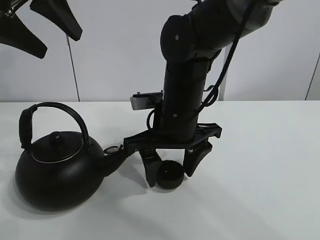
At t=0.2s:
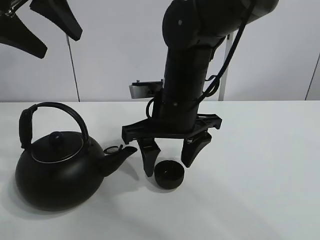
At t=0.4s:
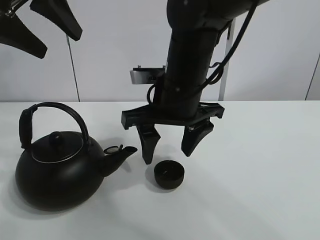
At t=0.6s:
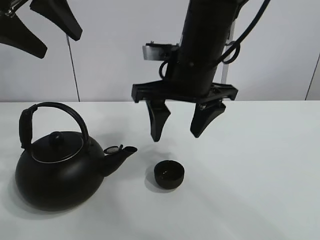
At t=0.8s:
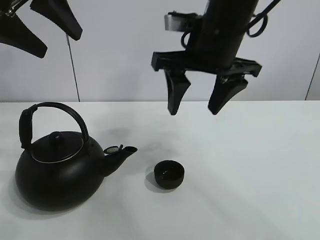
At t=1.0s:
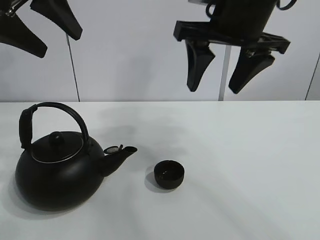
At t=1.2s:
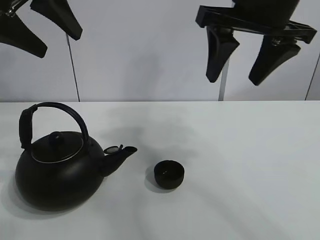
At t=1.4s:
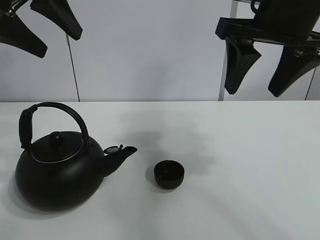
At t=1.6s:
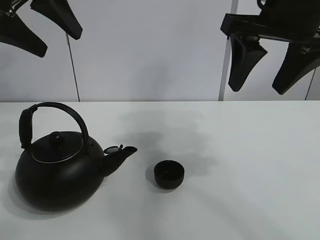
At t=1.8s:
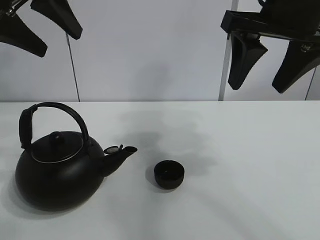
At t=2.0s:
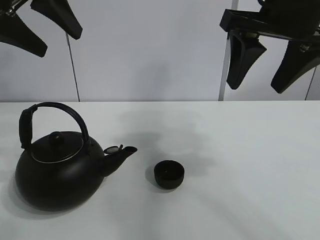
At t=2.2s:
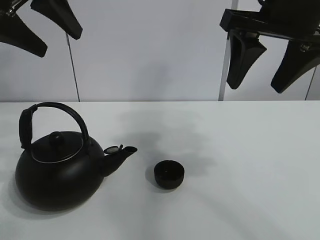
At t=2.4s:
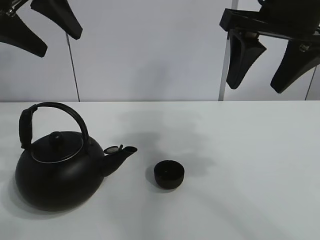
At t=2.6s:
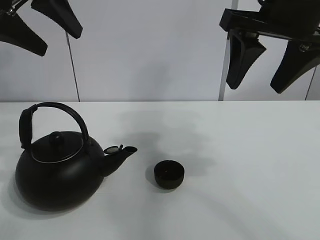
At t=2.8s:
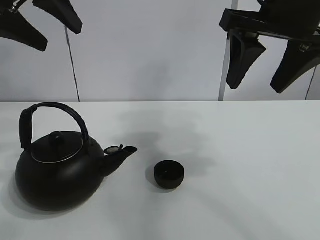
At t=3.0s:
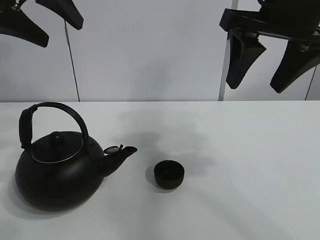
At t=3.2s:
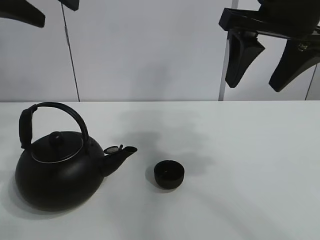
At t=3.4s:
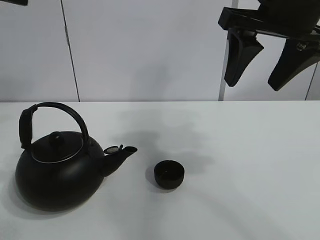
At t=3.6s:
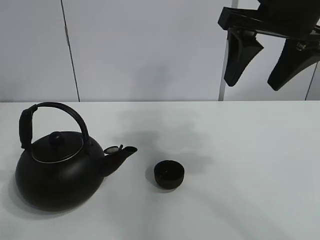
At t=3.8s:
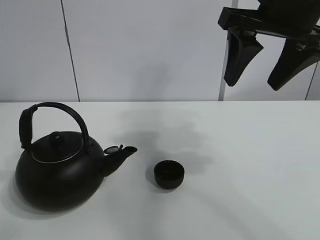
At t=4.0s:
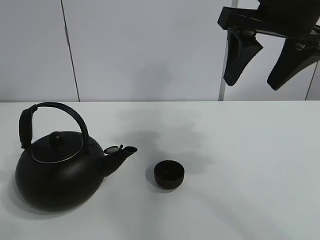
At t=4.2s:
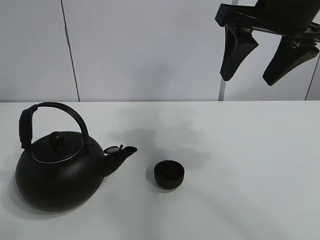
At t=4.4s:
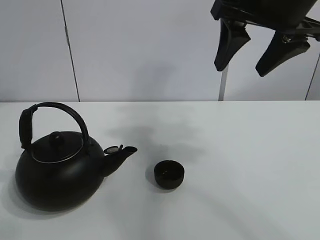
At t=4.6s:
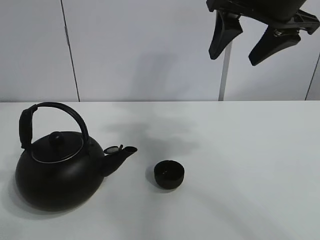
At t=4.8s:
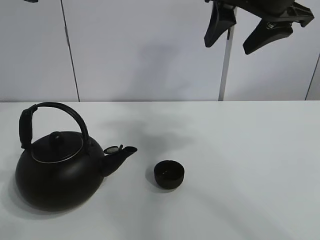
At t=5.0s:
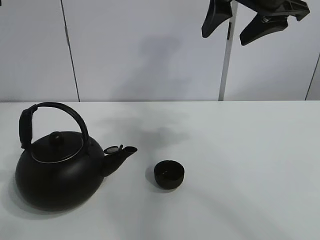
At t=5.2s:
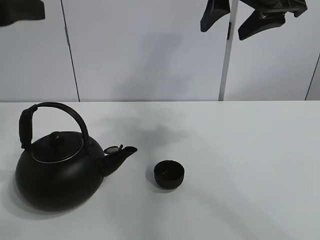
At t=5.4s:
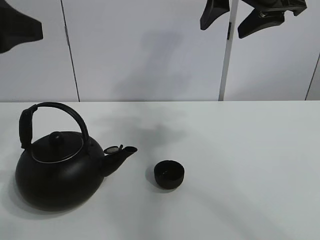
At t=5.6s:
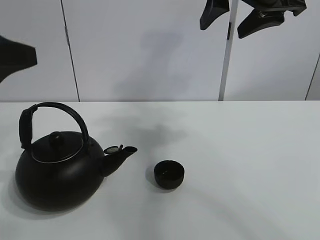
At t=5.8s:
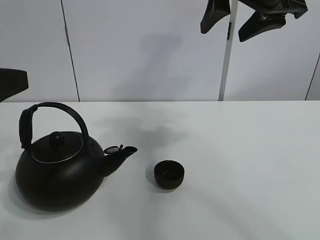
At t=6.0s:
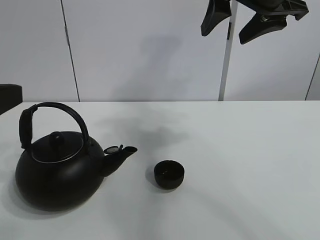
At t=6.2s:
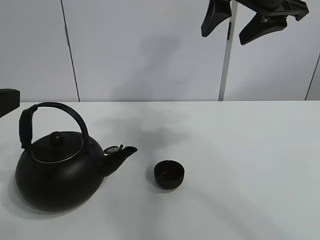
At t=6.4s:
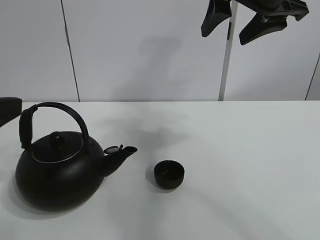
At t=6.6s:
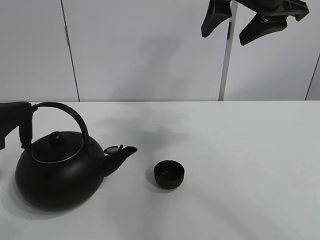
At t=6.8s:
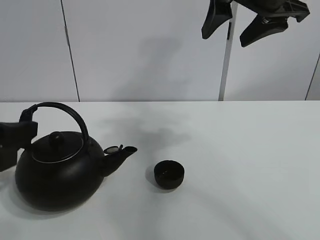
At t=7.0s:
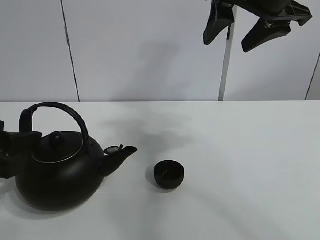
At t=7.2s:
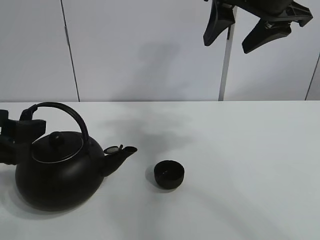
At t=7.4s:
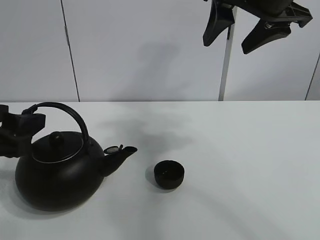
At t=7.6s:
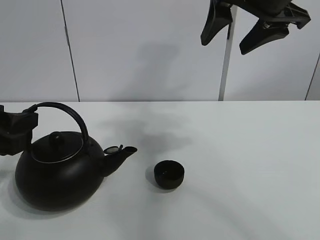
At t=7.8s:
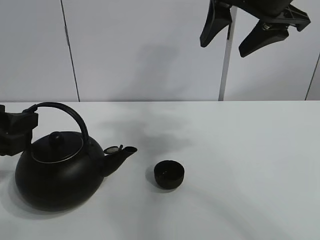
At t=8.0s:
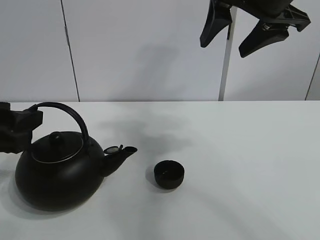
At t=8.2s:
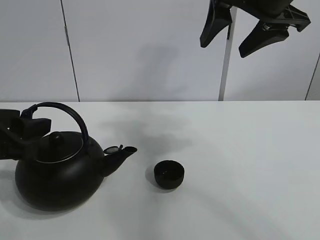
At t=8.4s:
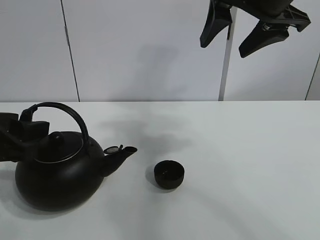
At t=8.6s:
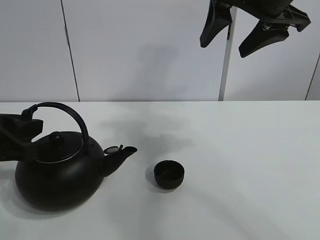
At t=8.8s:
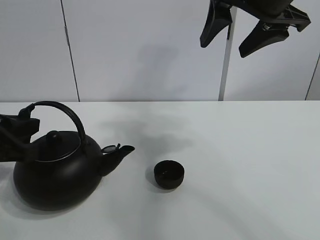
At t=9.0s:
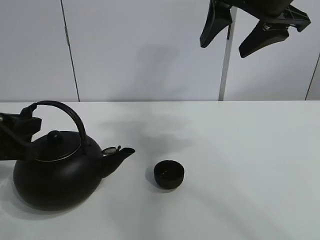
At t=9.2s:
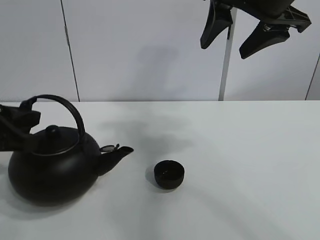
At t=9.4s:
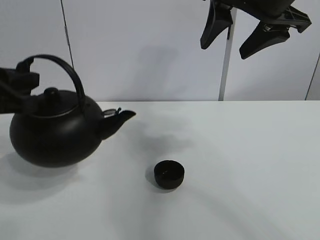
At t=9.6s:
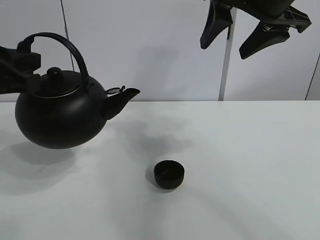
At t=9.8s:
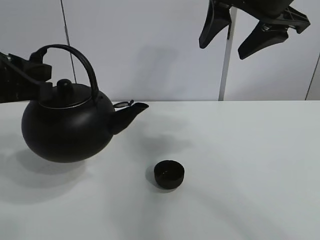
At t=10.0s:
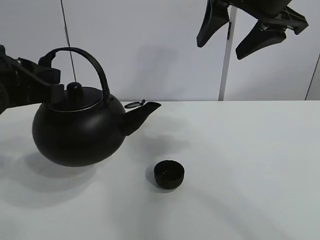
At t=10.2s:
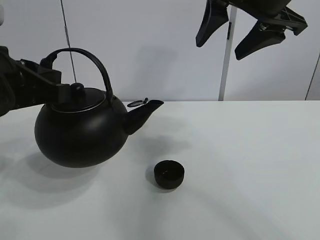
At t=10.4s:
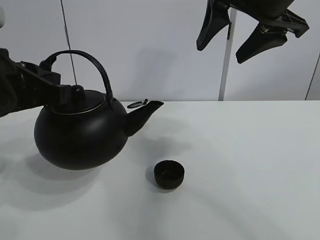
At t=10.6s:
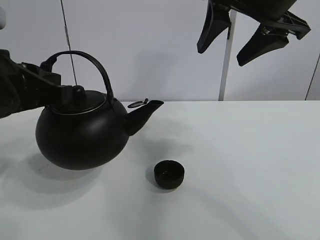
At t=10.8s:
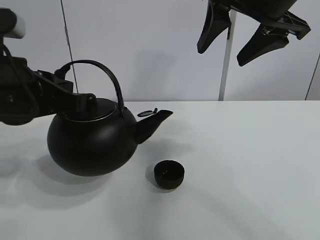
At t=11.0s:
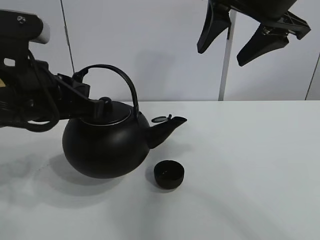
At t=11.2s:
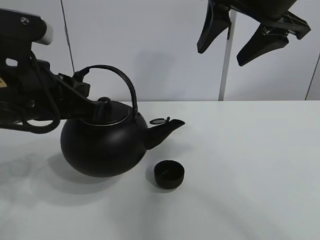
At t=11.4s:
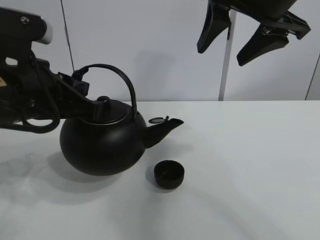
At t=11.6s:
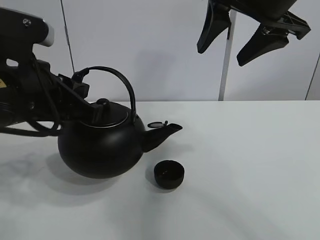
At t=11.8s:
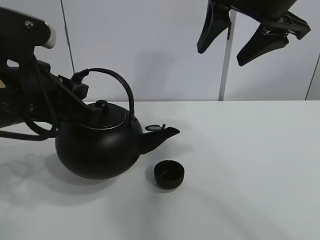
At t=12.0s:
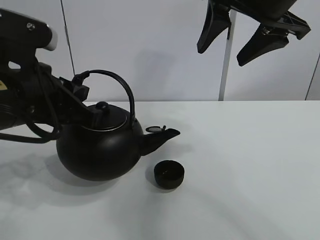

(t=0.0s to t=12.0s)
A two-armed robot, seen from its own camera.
Task of the whole recording: pour tea into the teacup.
Step, t=0.2s - t=8.8s: Pick up the teapot with the left gripper.
t=0.0s - t=1.6s: The right gripper moves upward and to the right, about 20 cm.
t=1.6s - t=3.0s: The grippers move only a little.
t=3.0s - t=4.4s: The left gripper is displaced backward by roughly 5 cm.
t=4.4s - t=6.0s: The left gripper goes some 15 cm downward and backward.
t=6.0s - t=7.6s: The left gripper travels downward by roughly 5 cm.
t=7.6s - t=9.0s: The left gripper closes.
t=9.0s - t=10.4s: The left gripper shifts approximately 5 cm upward.
t=10.4s - t=12.0s: The grippers make only small movements.

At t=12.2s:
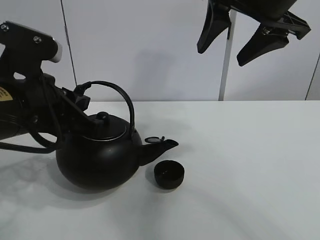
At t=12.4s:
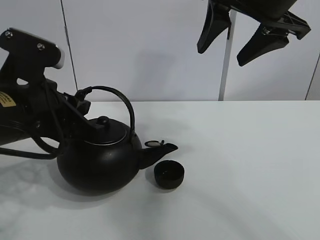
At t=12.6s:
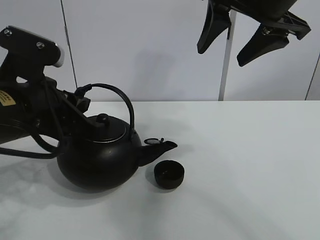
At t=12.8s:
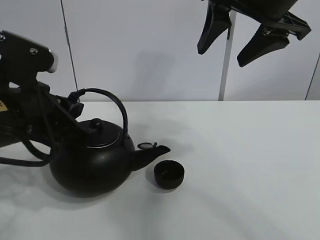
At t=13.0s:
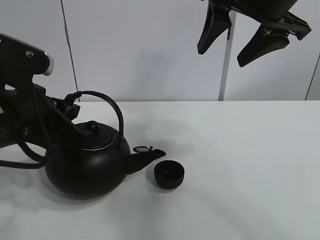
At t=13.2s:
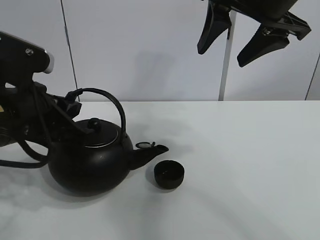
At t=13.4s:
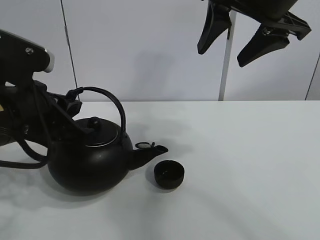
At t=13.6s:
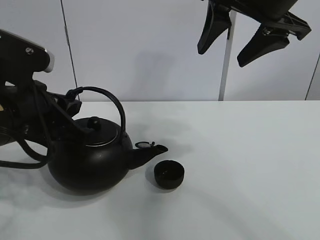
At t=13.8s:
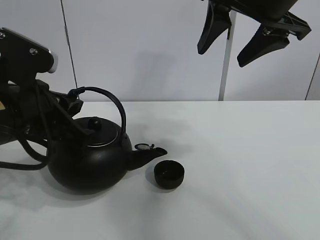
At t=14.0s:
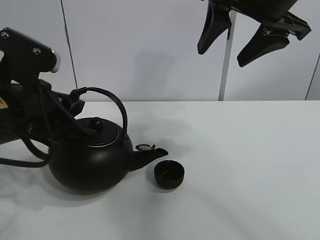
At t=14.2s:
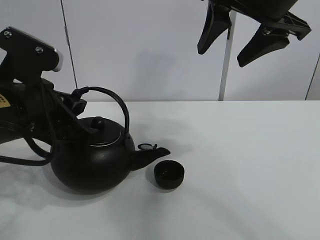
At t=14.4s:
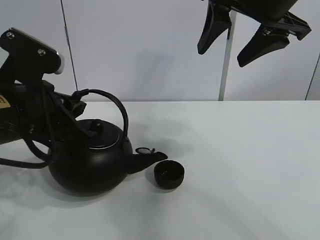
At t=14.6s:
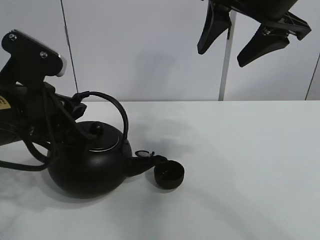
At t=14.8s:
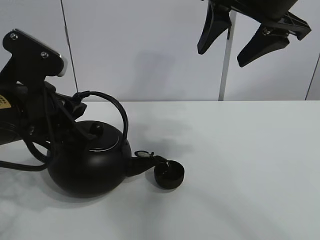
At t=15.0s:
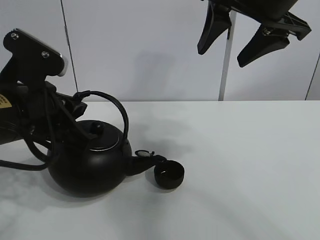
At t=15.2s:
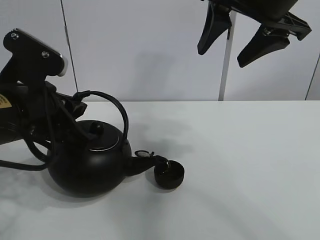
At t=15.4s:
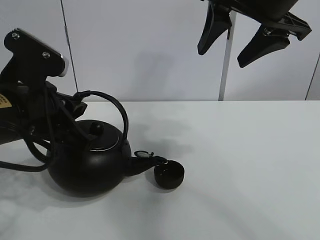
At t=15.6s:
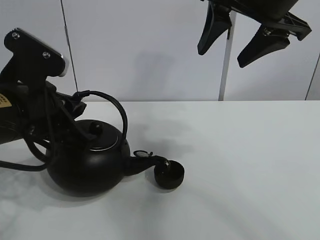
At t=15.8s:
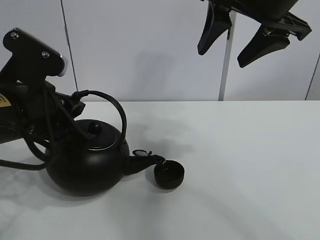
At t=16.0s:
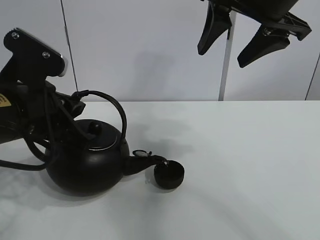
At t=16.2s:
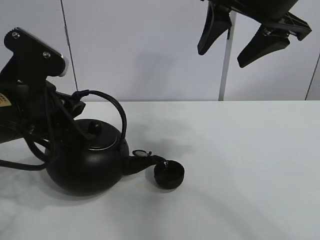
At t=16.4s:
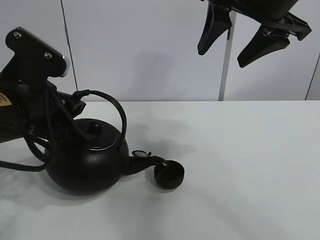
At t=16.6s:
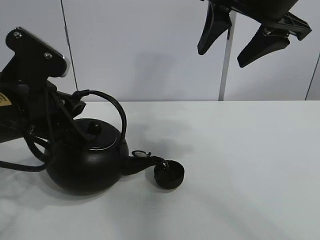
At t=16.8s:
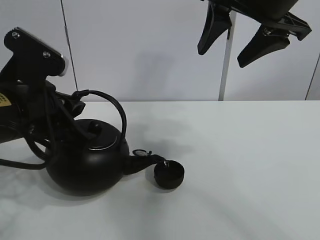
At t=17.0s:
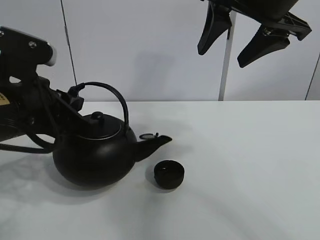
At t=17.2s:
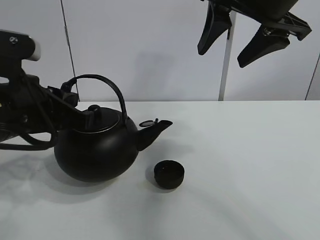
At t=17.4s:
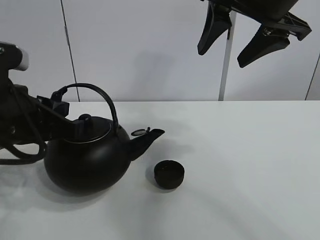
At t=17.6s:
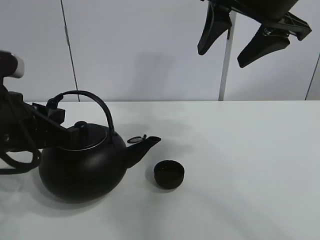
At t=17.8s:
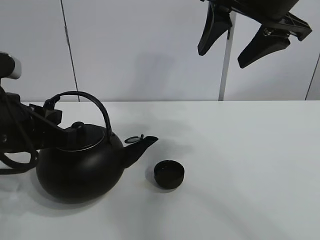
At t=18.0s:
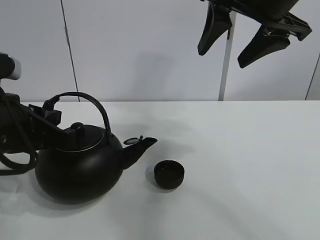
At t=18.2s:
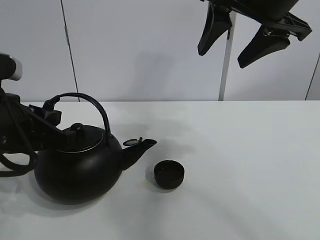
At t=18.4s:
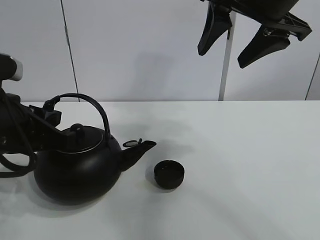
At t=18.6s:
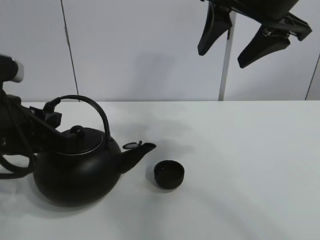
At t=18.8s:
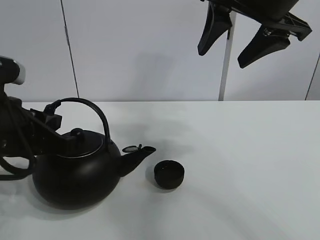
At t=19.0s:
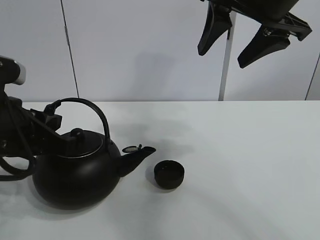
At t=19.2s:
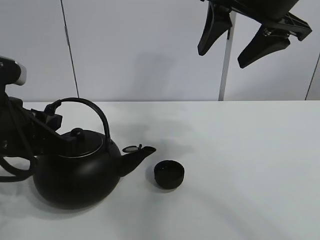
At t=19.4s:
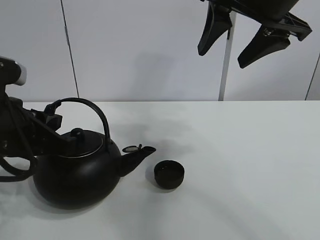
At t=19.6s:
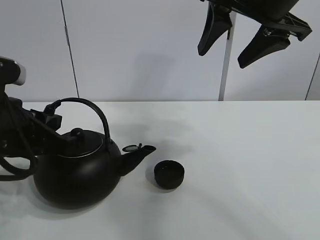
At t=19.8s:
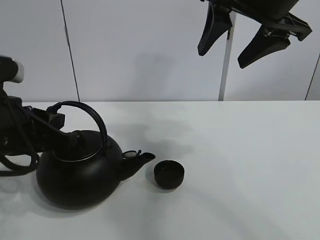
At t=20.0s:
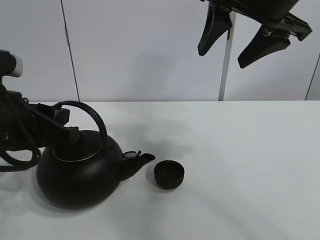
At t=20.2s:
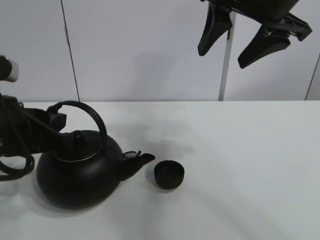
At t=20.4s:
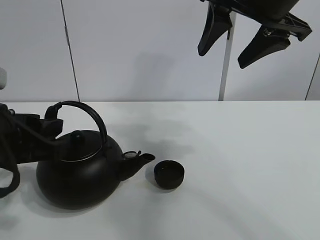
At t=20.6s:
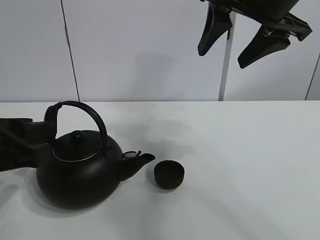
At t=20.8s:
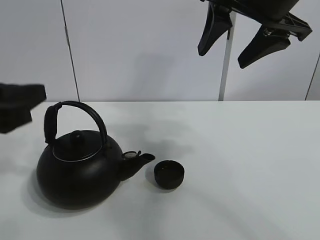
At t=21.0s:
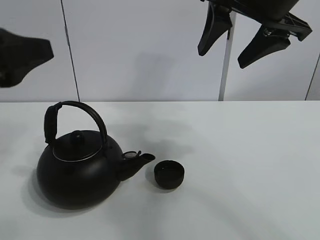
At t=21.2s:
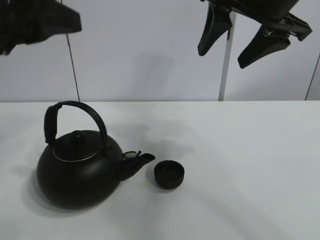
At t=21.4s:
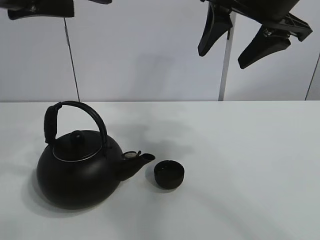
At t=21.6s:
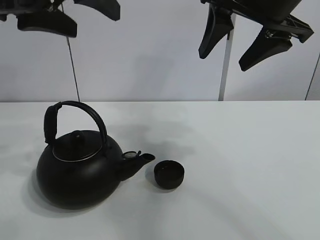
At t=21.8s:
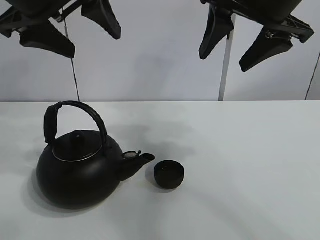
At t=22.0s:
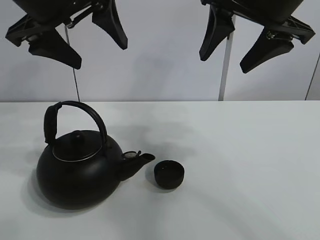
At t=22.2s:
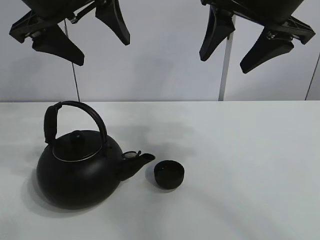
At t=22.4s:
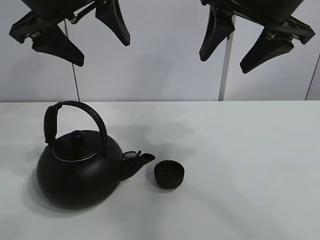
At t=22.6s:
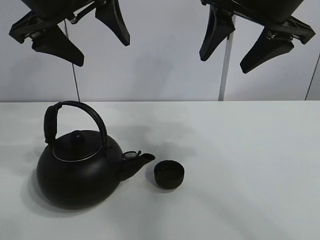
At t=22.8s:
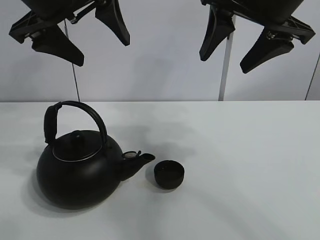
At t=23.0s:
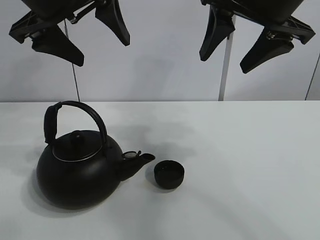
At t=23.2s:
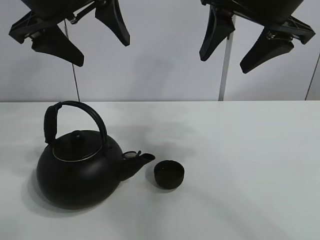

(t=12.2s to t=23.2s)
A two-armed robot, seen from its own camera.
Task of the whole recording: pour tea into the teacup.
Step, t=12.2s - t=16.8s: Pour tea into the teacup with the left gripper.
t=12.2s - t=18.4s: The grippers make only small movements.
t=18.4s - t=20.0s: The left gripper opens up.
t=20.0s - t=21.6s: The left gripper moves upward, roughly 15 cm, and opens up.
t=21.6s - t=23.2s: The left gripper moves forward, some 5 cm.
